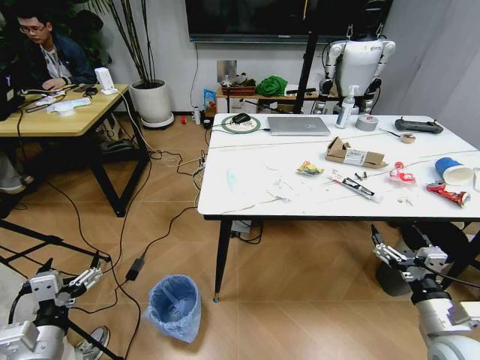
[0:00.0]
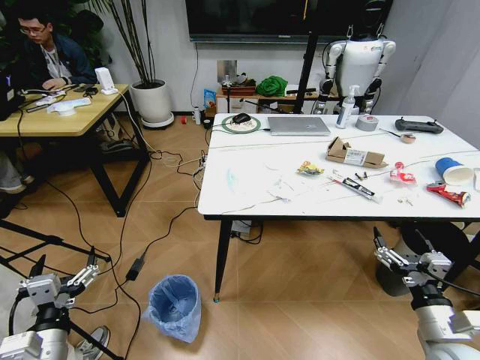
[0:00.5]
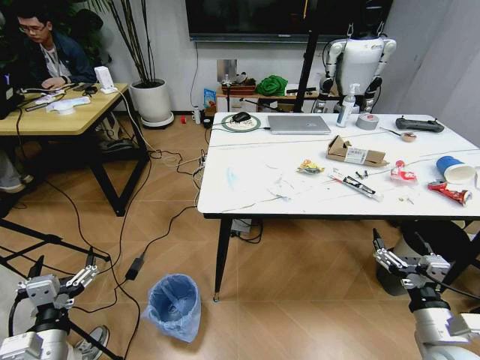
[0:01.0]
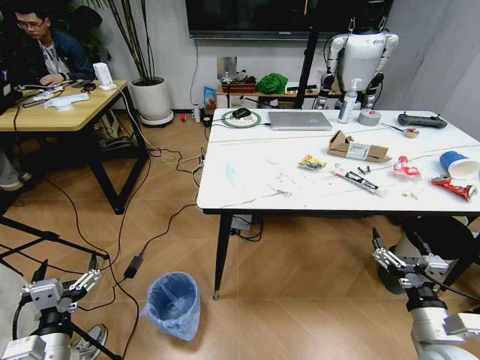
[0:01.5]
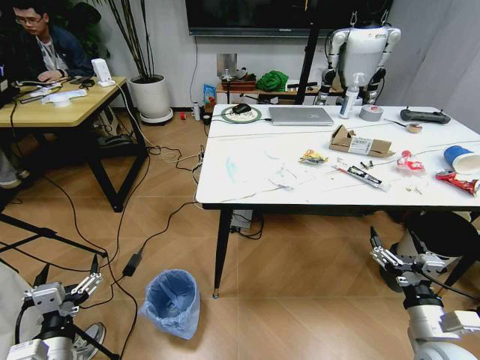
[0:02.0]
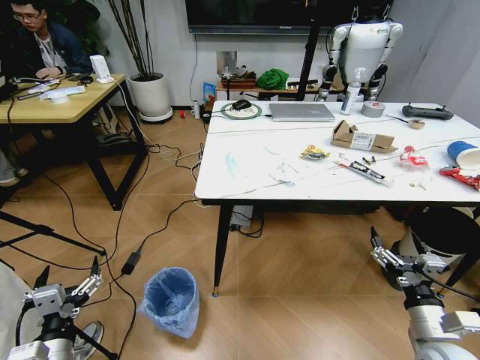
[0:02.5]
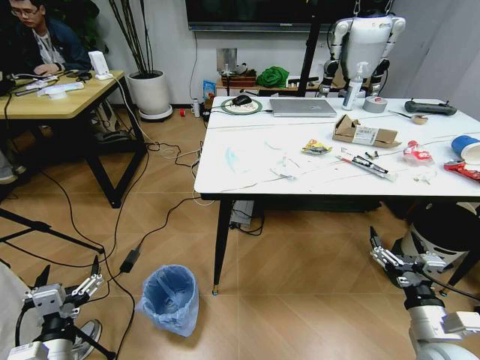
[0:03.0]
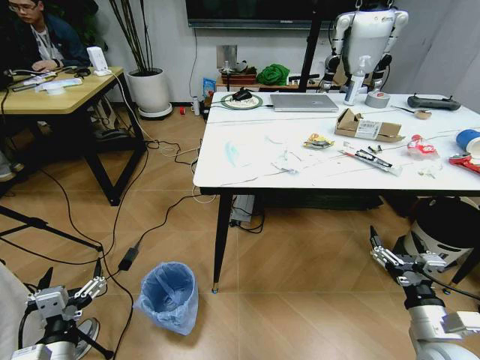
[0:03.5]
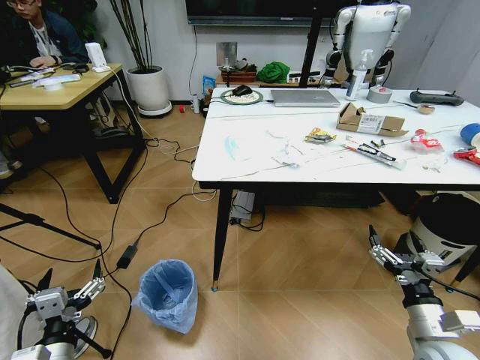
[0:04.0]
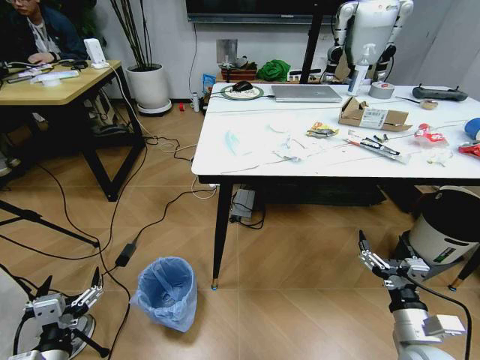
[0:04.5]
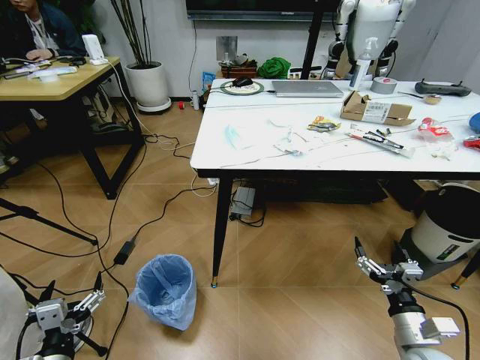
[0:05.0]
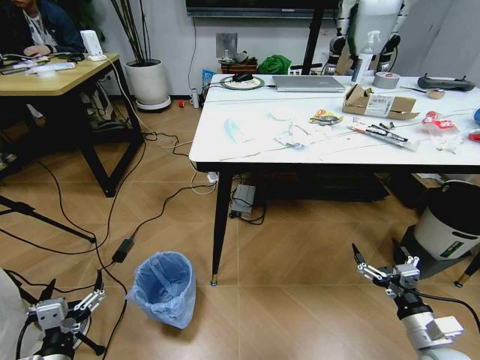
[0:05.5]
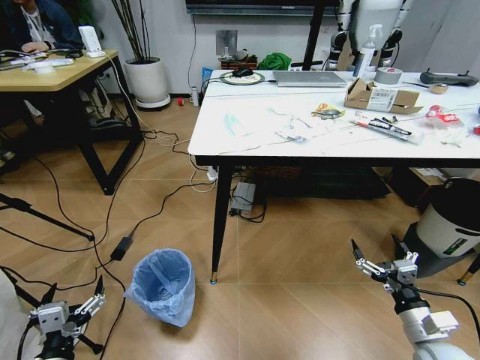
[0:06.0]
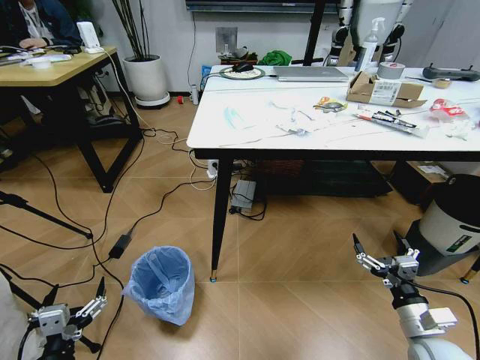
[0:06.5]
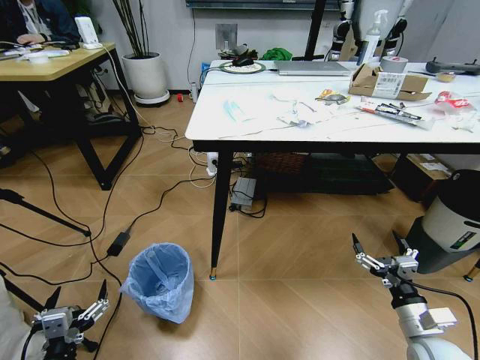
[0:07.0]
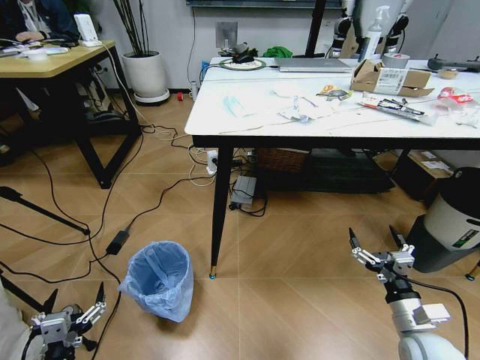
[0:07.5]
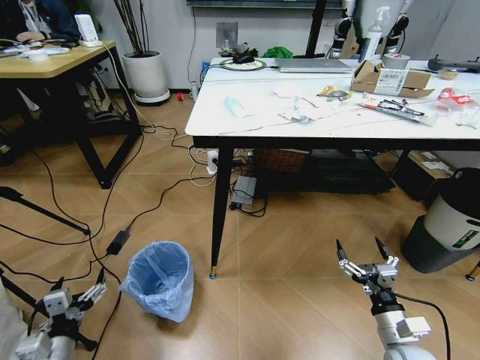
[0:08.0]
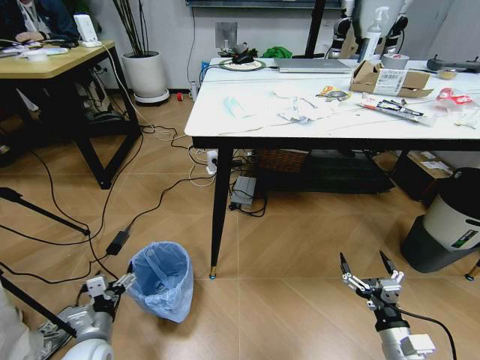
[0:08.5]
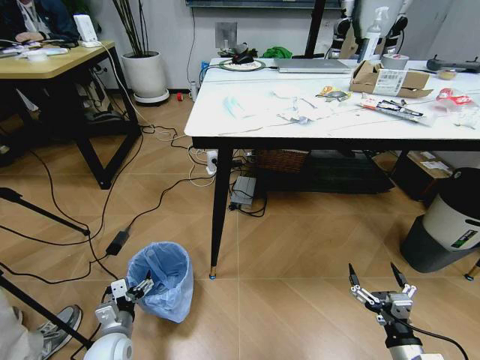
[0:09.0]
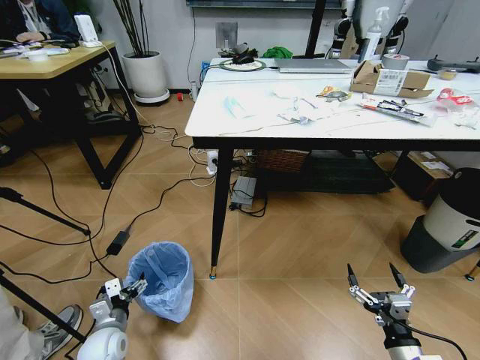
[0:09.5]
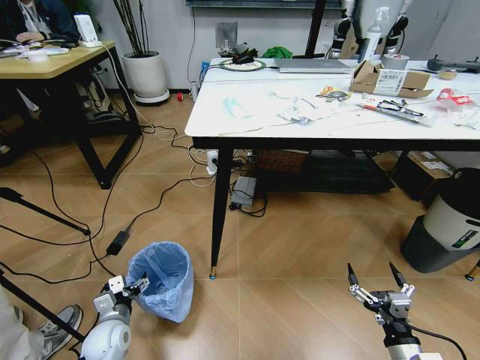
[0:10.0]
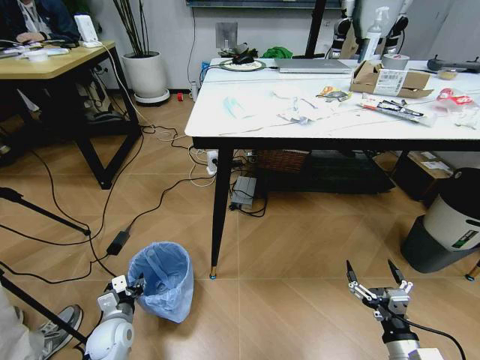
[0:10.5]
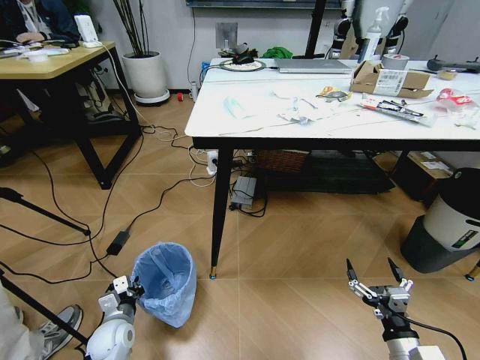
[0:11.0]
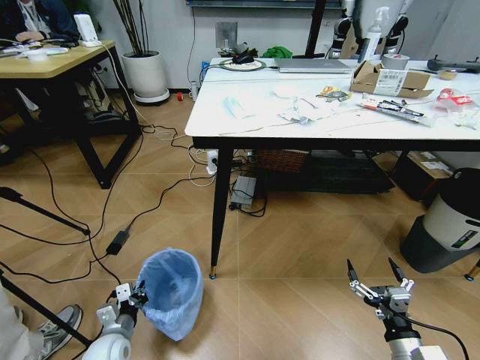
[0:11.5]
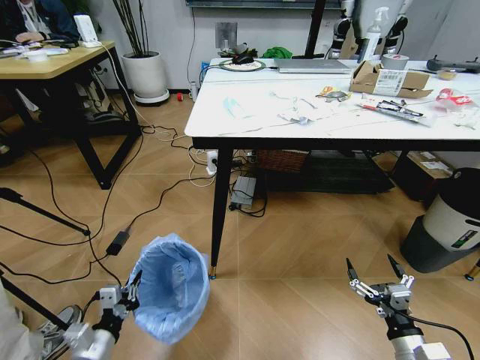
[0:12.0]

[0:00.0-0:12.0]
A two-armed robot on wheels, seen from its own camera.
Task of the whole recording: Pick up the trash bin and place the trash from the table into it.
0:06.0 to 0:08.0: The left gripper moves about 5 cm. The right gripper changes place by approximately 5 cm.
0:08.0 to 0:10.0: The left gripper moves forward and downward, roughly 15 cm. Meanwhile the right gripper heads backward, covering roughly 5 cm.
0:10.0 to 0:12.0: The left gripper shifts some 15 cm backward and upward, and closes its fingers.

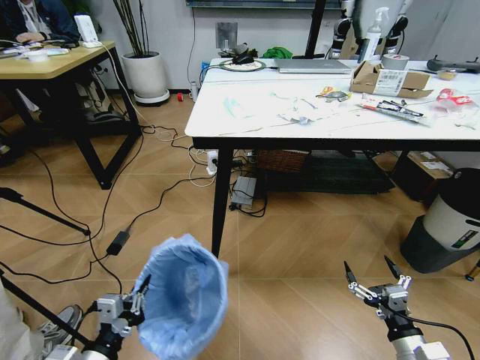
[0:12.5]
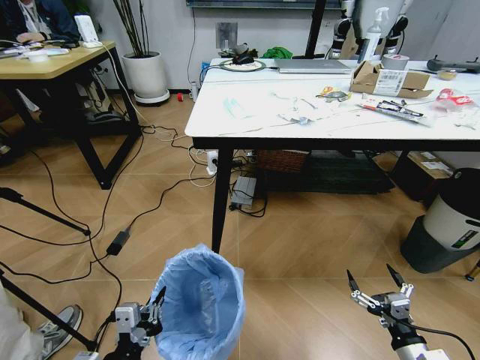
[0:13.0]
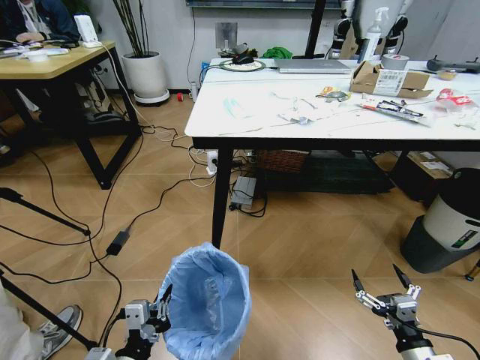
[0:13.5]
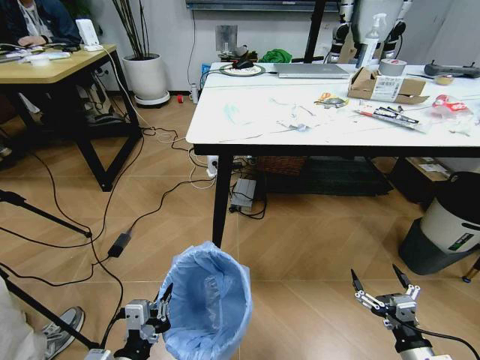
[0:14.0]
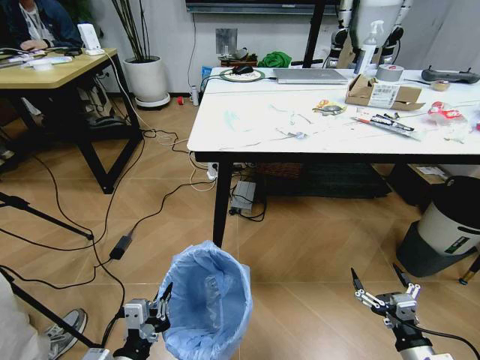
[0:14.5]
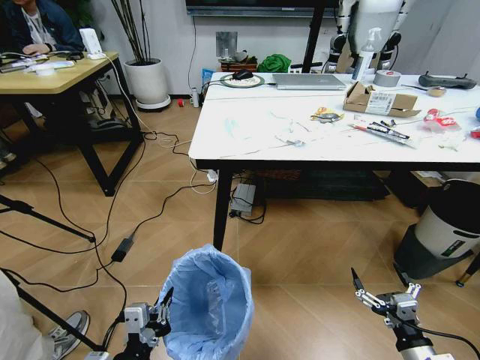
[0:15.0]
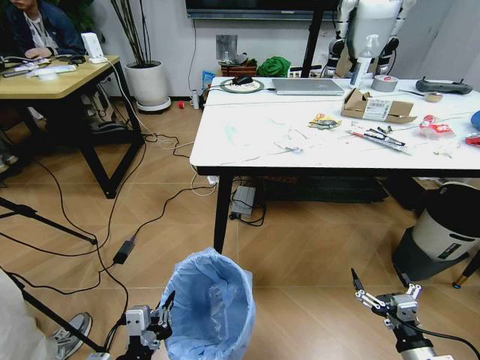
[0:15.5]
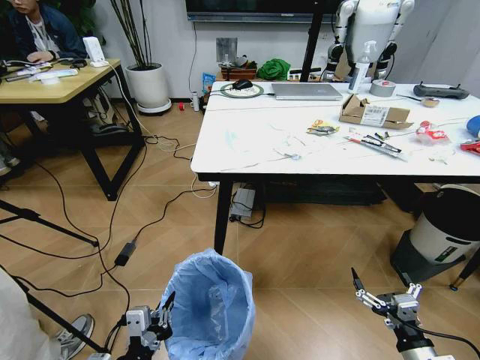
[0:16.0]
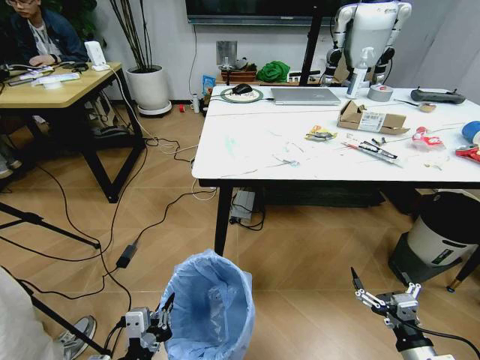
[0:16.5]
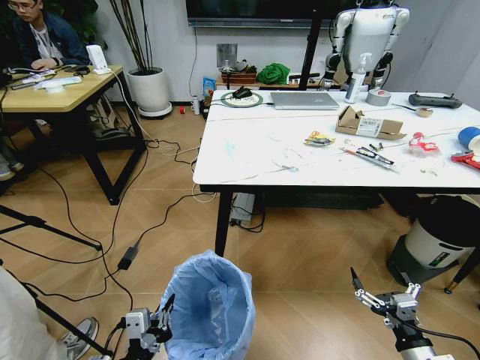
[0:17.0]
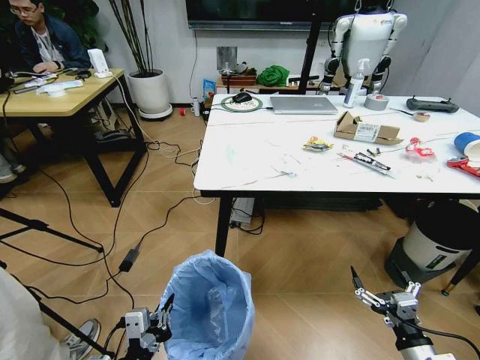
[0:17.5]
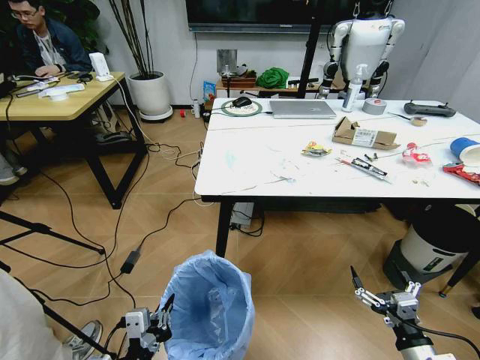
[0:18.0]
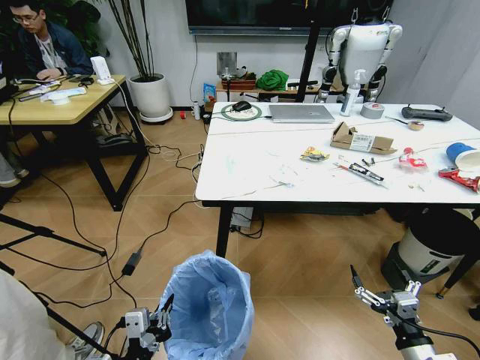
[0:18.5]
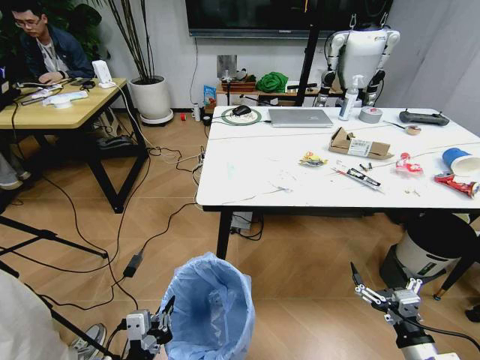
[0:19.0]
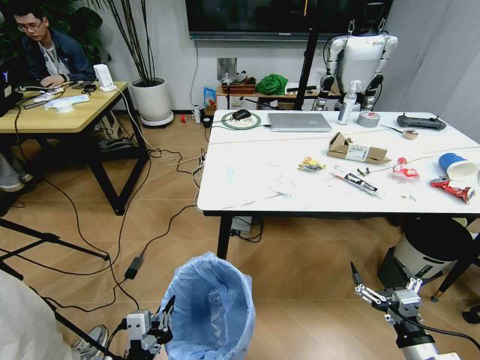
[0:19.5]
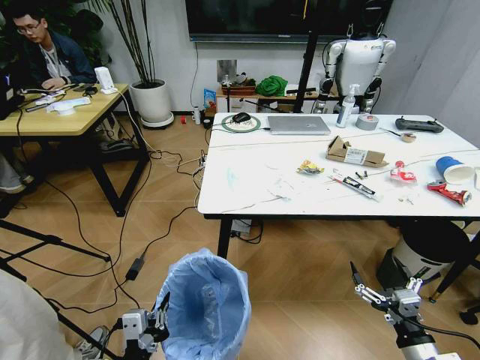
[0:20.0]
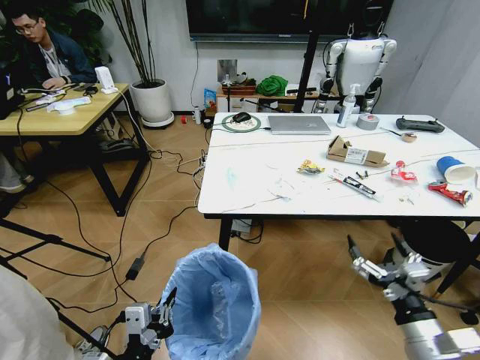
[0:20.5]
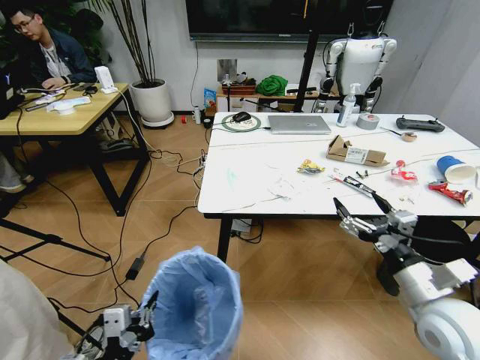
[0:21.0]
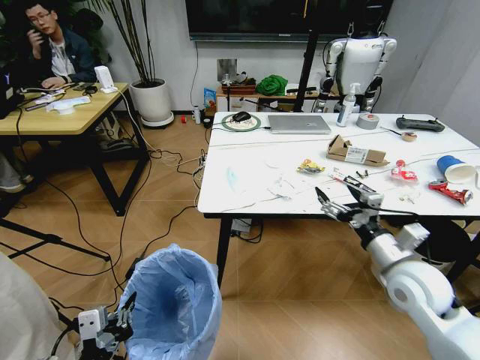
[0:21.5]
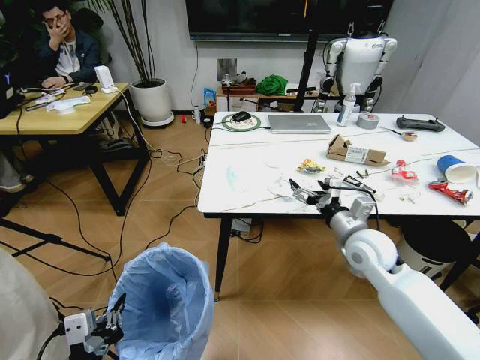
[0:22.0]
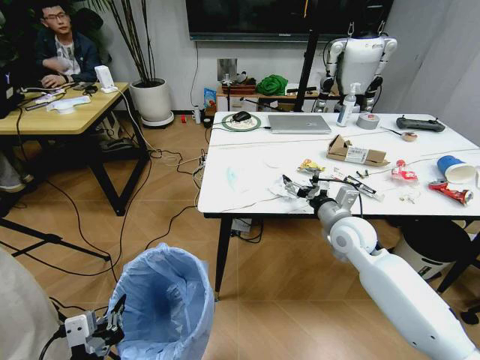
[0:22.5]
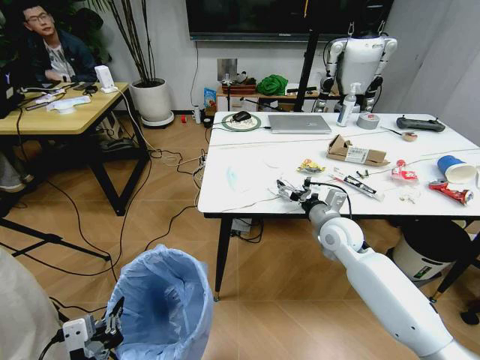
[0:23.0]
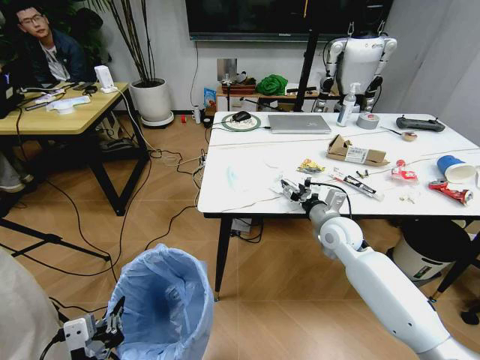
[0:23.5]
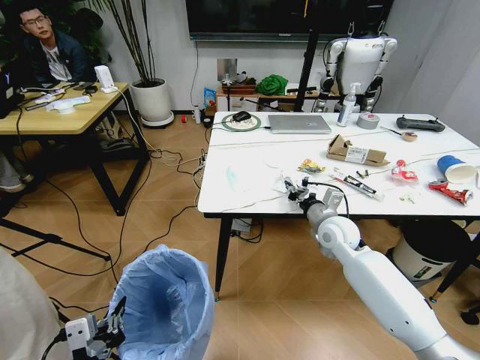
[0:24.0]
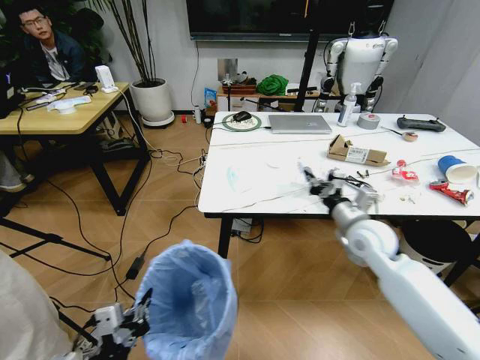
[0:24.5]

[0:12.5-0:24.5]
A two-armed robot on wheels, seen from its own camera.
Task of the whole recording: Pick up the trash bin and place the trash from the table into it.
0:12.5 to 0:14.5: The left gripper is displaced to the right by about 5 cm.
0:18.5 to 0:20.5: The right gripper moves upward, approximately 10 cm.
0:20.5 to 0:22.5: The left gripper goes about 5 cm to the left; the right gripper shifts some 25 cm forward.
0:22.5 to 0:24.5: The right gripper closes.

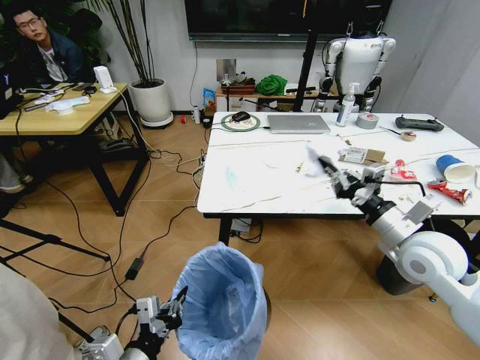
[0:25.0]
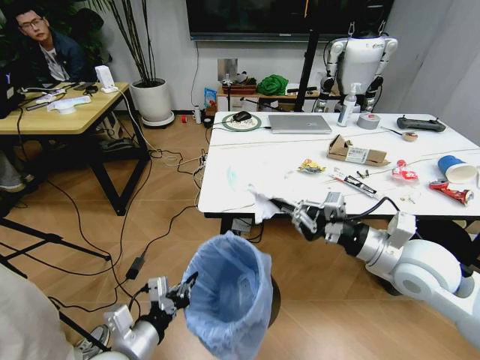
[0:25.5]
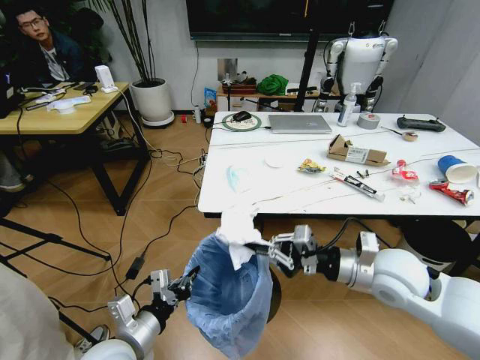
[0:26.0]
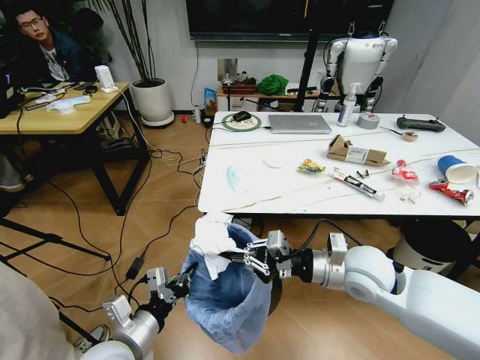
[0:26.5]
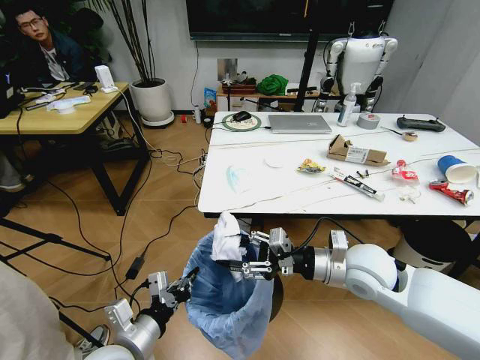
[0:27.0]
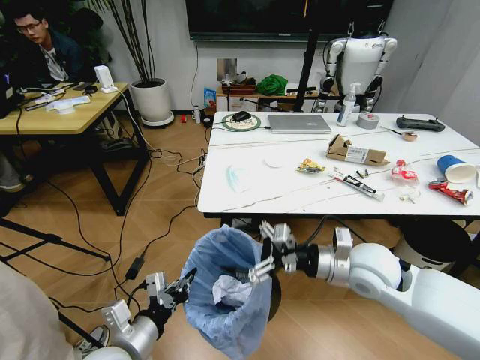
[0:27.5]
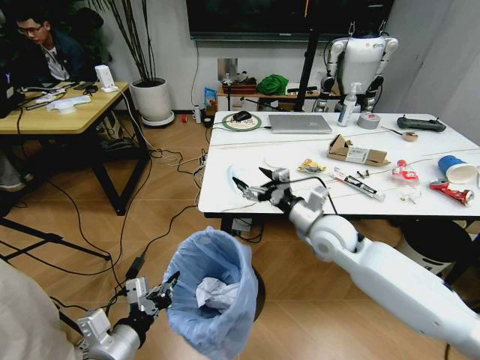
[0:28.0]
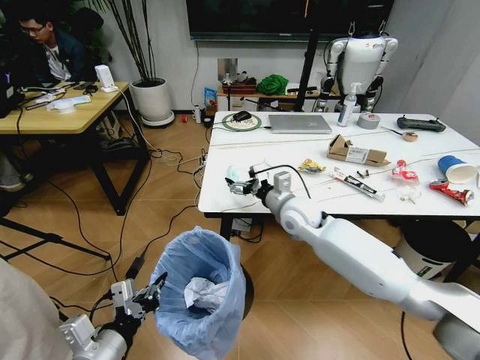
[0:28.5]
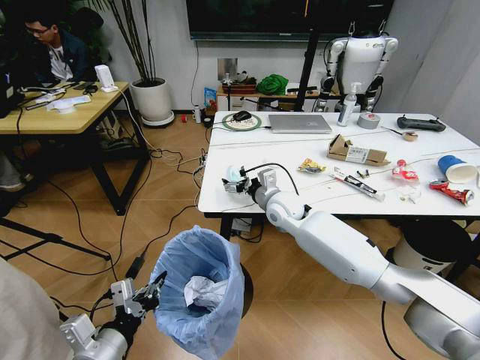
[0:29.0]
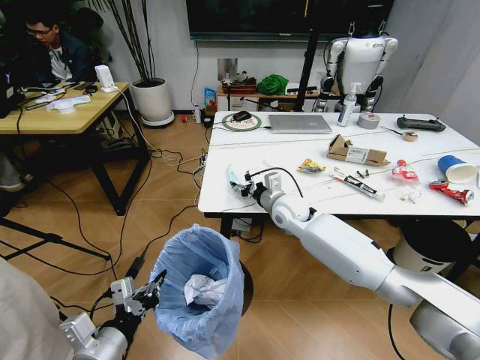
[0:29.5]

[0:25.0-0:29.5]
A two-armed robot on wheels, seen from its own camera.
Task of the whole recording: Pick up the trash bin and place the trash from the table into it.
0:25.0 to 0:27.0: The left gripper moves forward, approximately 5 cm, while the right gripper travels to the left by roughly 10 cm, and opens.
0:27.0 to 0:29.5: The left gripper ends up approximately 5 cm from where it was. Meanwhile the right gripper travels forward and to the left by roughly 20 cm.
